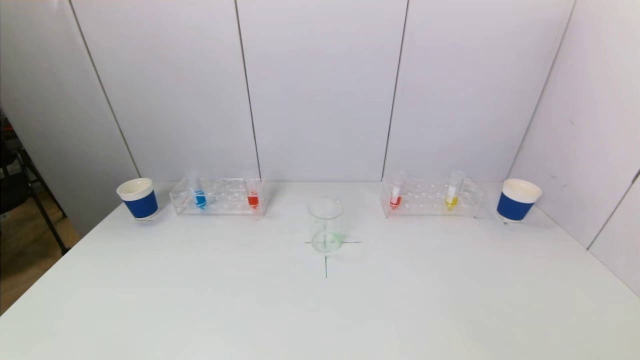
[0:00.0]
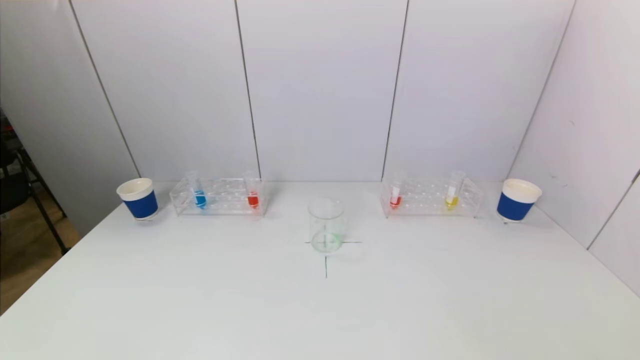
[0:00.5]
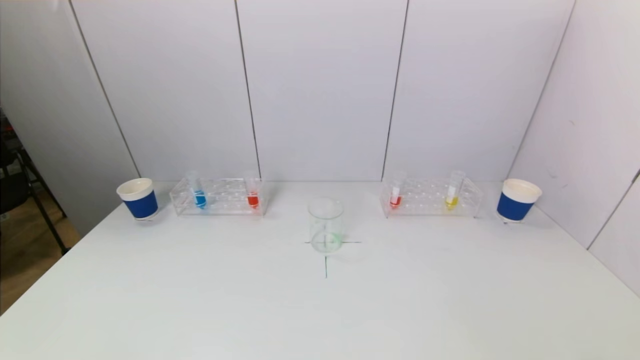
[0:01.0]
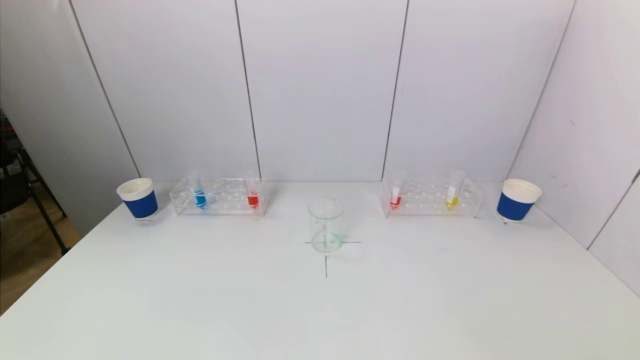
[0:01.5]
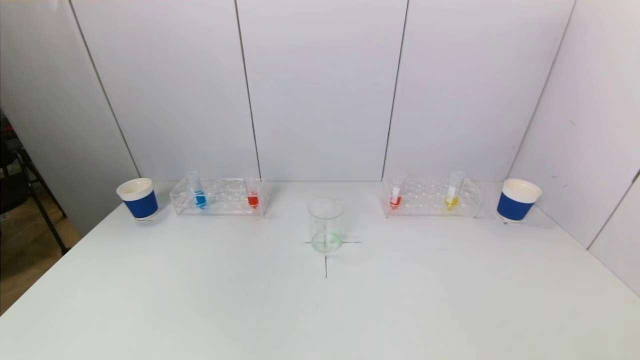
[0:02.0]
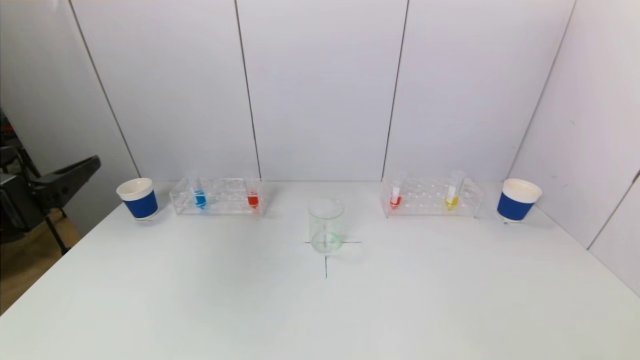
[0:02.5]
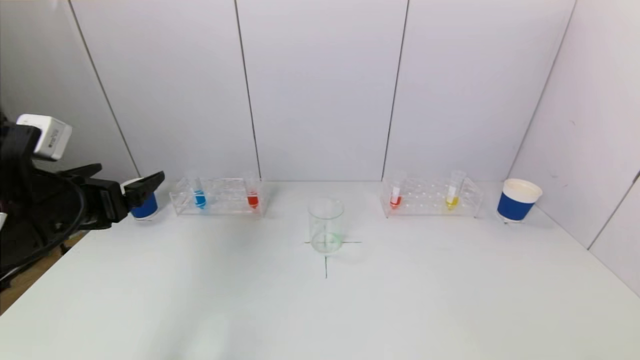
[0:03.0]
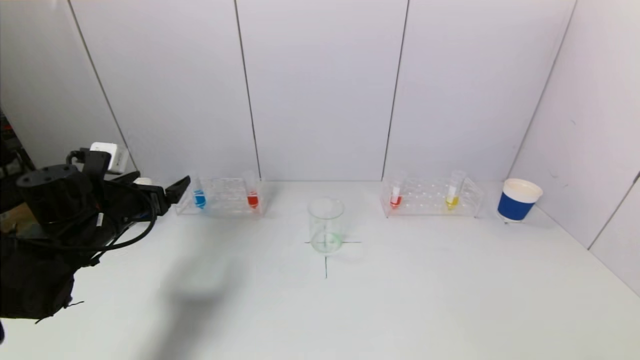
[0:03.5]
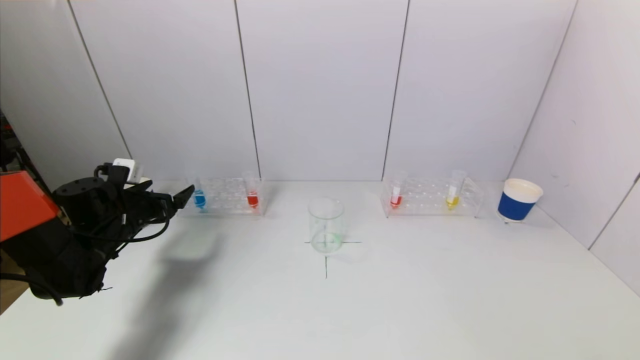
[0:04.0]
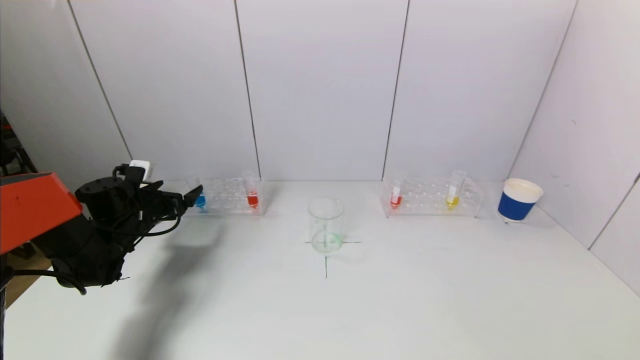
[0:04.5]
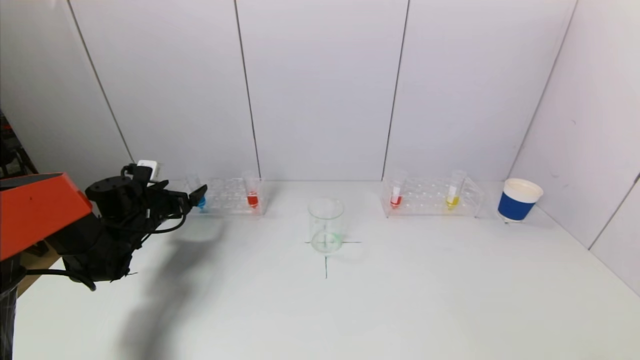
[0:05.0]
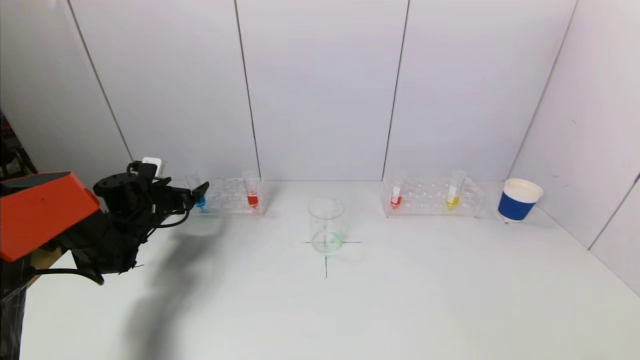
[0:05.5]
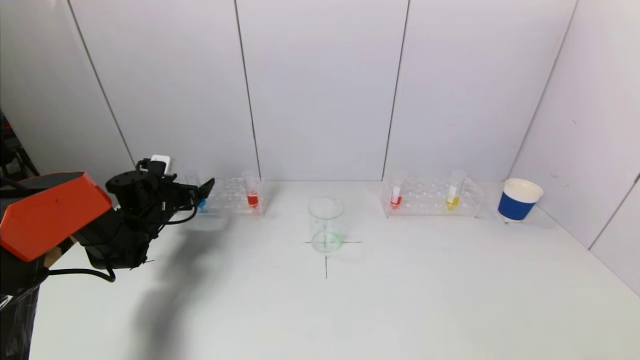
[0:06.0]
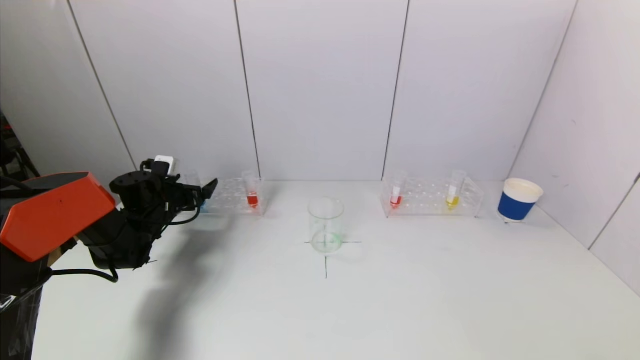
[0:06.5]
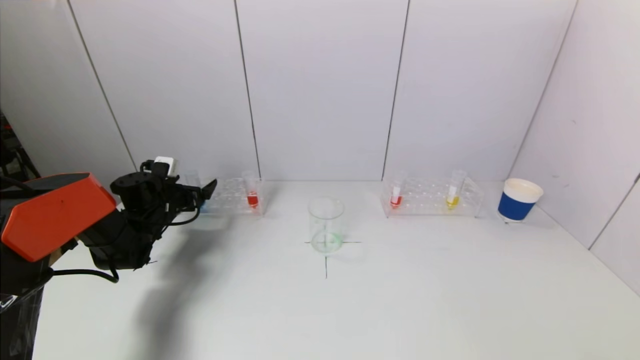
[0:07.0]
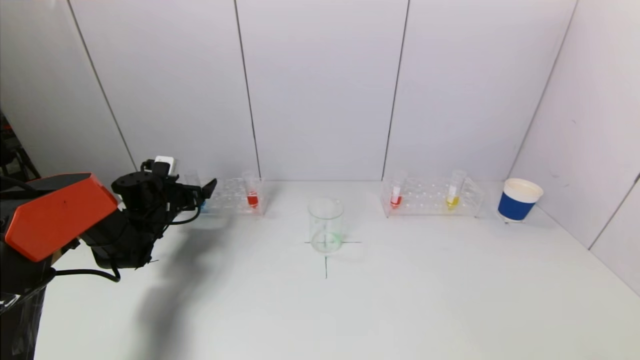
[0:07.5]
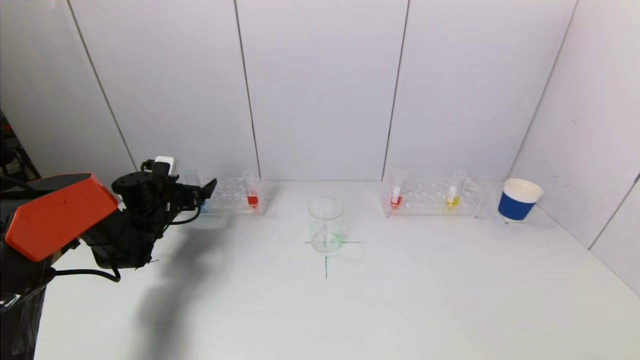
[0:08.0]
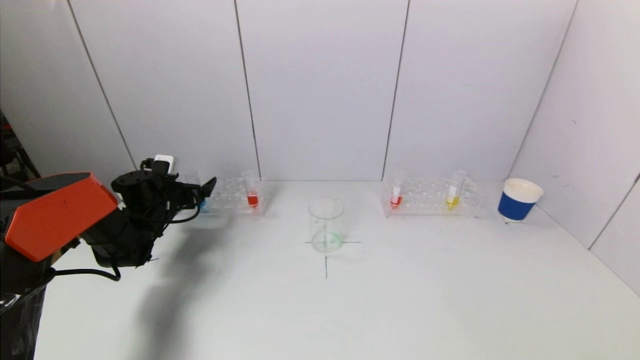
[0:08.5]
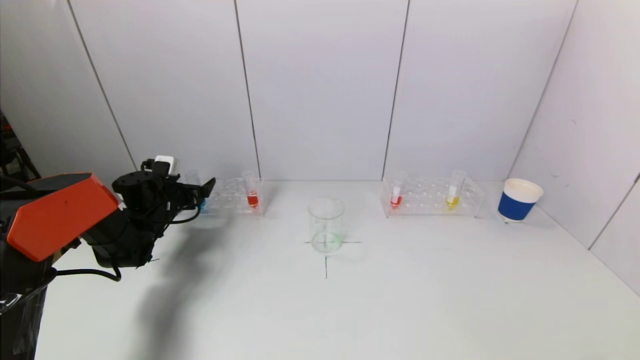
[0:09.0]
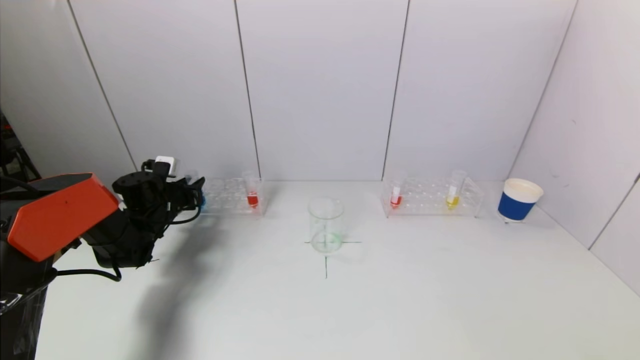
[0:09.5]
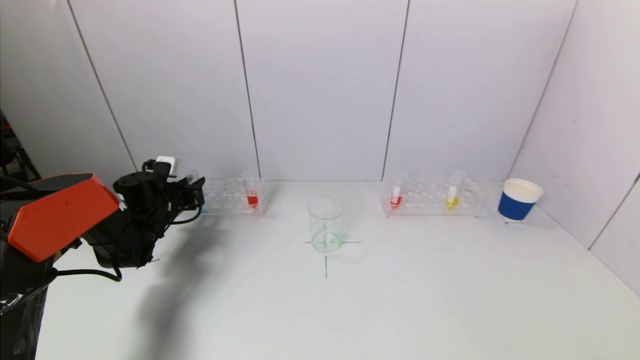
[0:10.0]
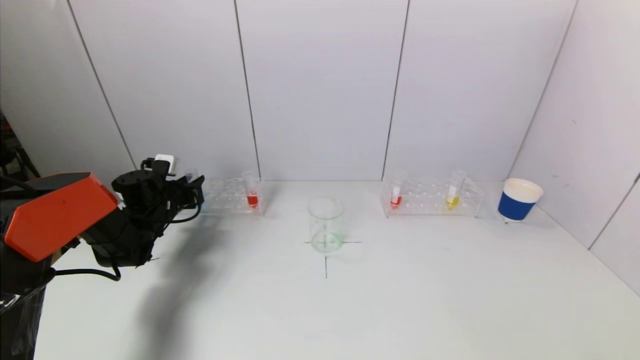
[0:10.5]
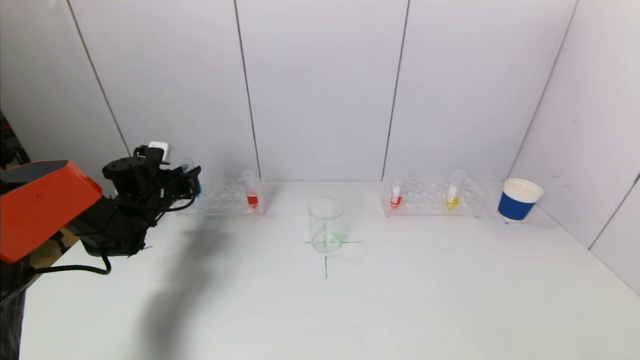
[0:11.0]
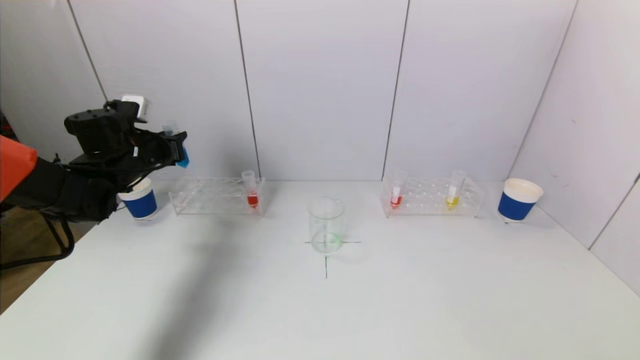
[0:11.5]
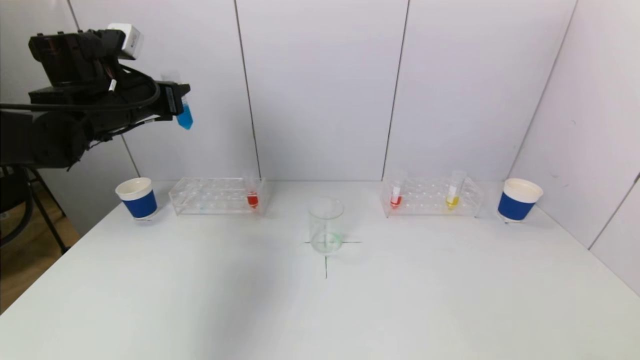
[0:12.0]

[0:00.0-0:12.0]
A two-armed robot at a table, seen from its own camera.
Task of the whole recording: pick up a test tube with pigment on left test tube rack and a test tube with pigment on right test tube rack by grippers and pour them into the beaker.
Step, 0:00.0 to 0:10.0: Grasp the blue reagent with the left gripper.
0:02.0 to 0:04.0: The left gripper heads forward and downward, covering about 40 cm.
0:04.0 to 0:06.0: The left gripper travels forward by about 5 cm.
0:06.0 to 0:08.0: Both grippers stay put.
0:08.0 to 0:10.0: The left gripper closes up.
0:10.0 to 0:12.0: The left gripper shifts some 25 cm upward.

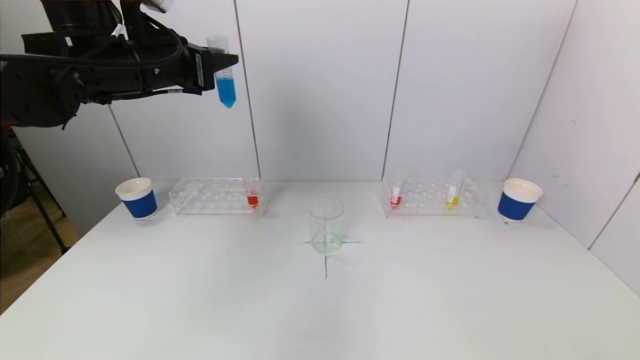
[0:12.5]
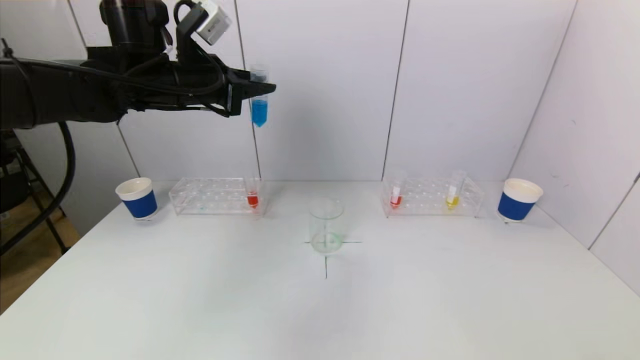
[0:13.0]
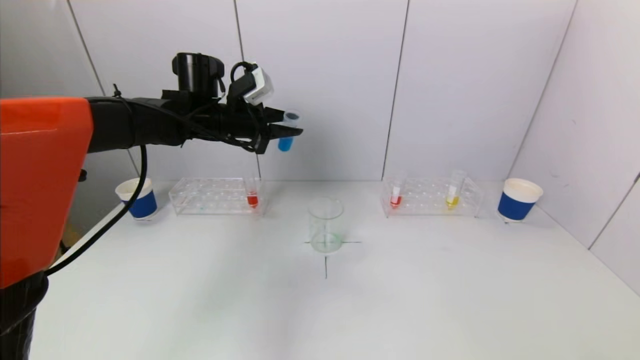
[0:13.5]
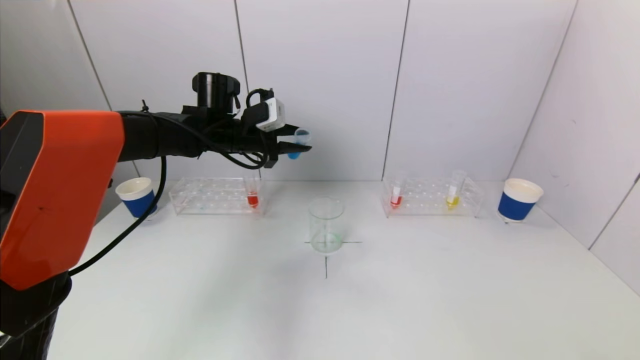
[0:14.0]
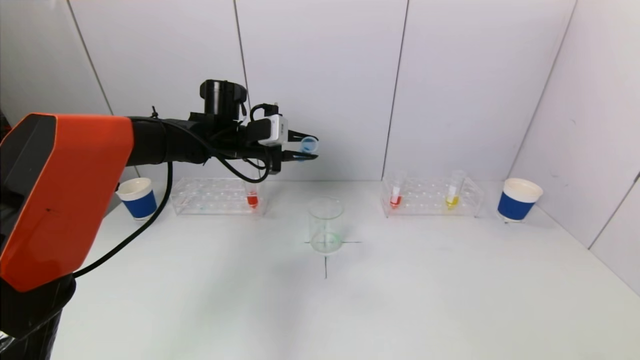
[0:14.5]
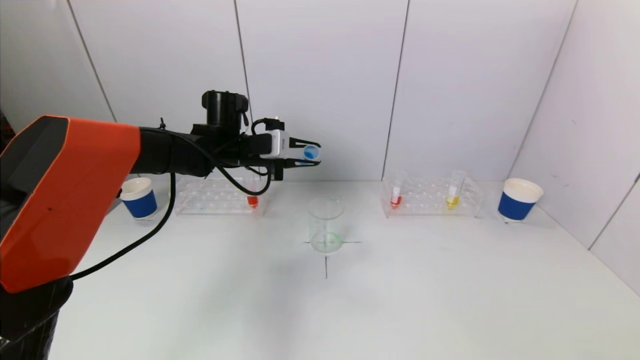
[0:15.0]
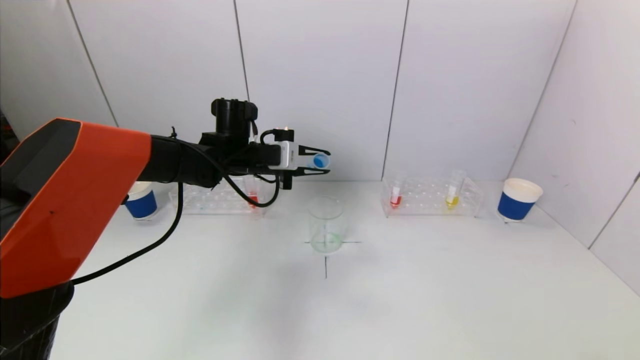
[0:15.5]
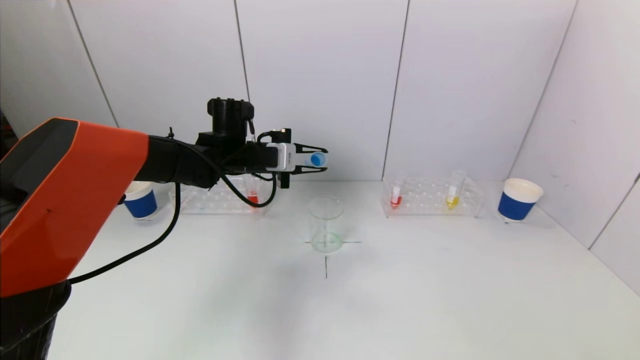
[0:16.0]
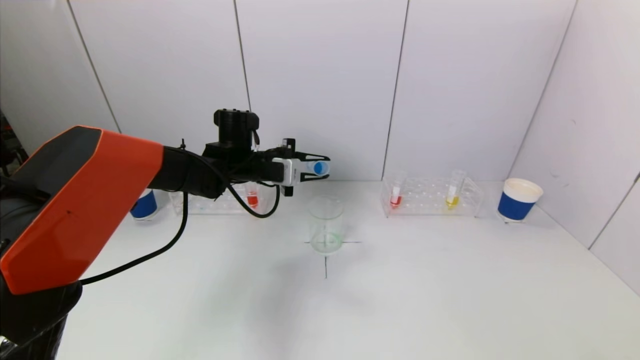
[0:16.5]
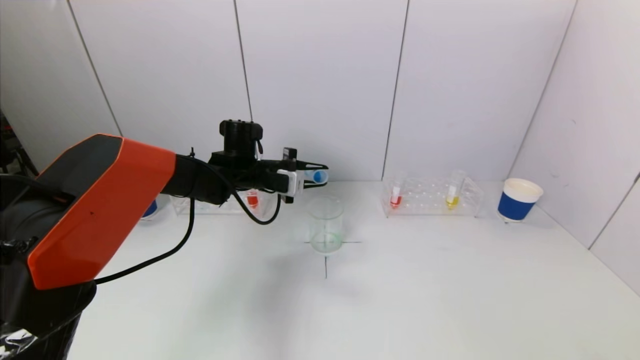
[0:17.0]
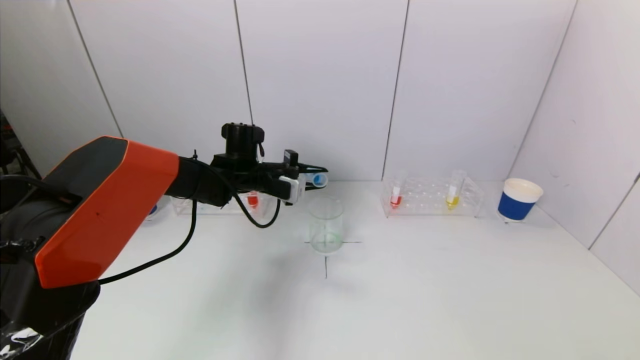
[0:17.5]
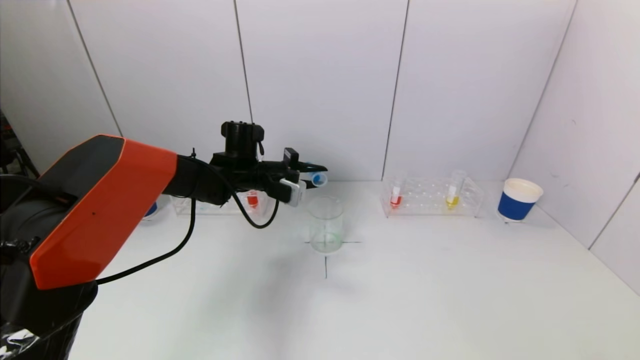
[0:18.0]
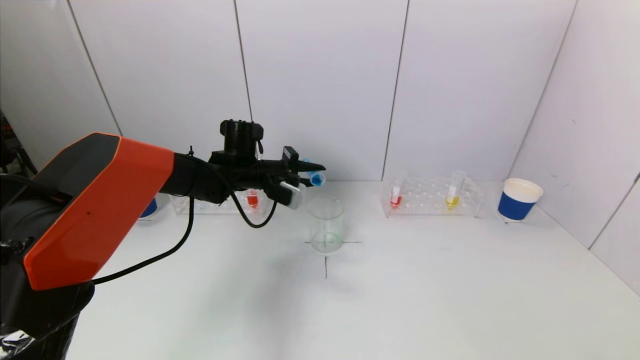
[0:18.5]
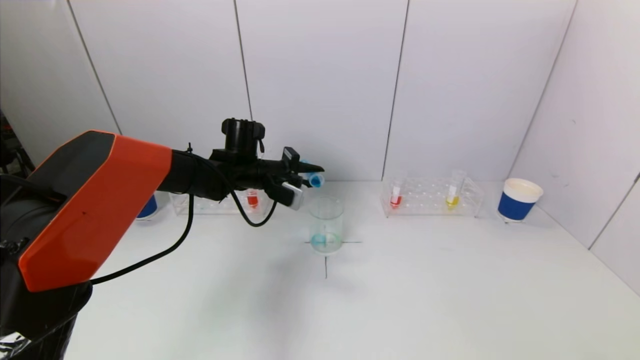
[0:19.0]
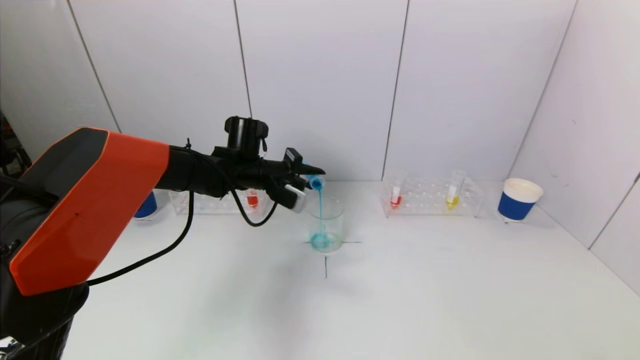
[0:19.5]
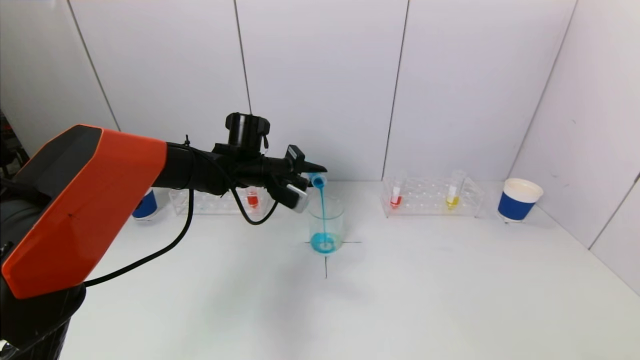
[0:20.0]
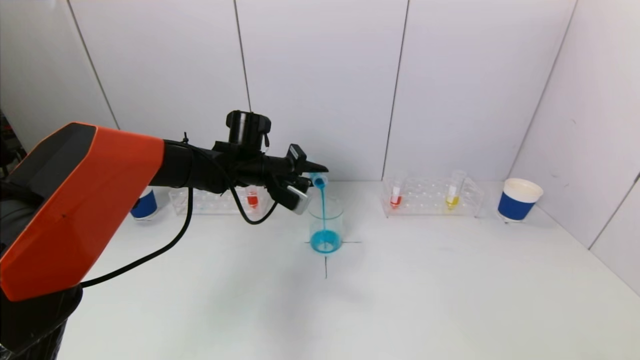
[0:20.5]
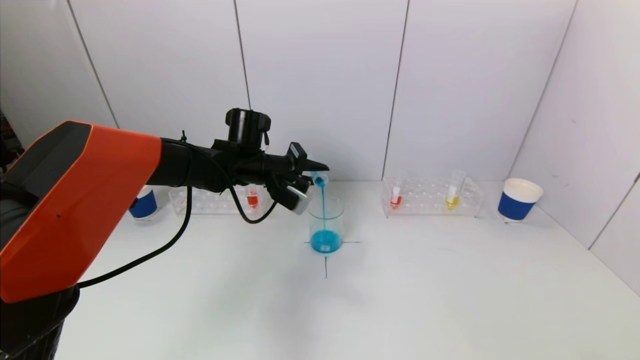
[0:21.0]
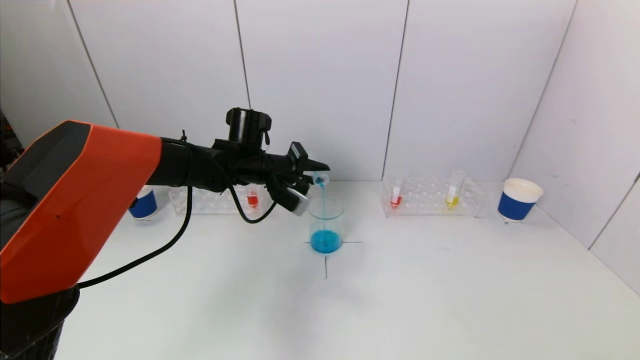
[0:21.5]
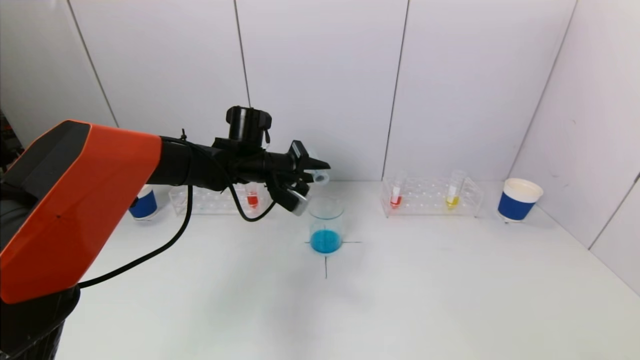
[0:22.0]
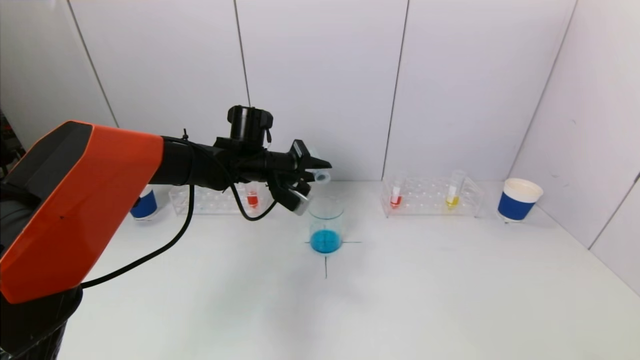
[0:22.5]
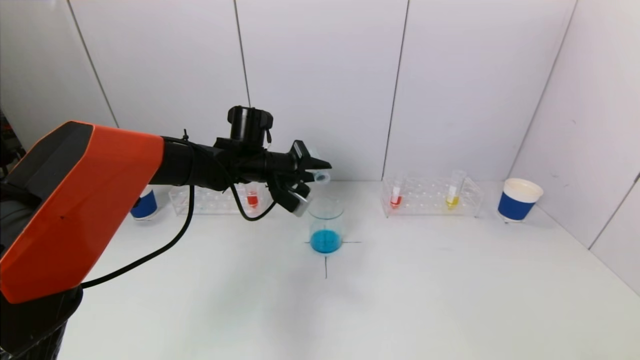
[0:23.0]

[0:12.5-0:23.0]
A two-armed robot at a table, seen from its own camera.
Task of the whole recording: pick up a test tube with pigment on left test tube rack and a test tube with pigment on right test tube rack by grippers and pour them into the beaker.
0:12.5 to 0:14.5: The left gripper goes roughly 20 cm downward, forward and to the right.
0:14.5 to 0:16.5: The left gripper ends up about 5 cm from where it was.
0:19.0 to 0:23.0: The grippers make only small movements.
